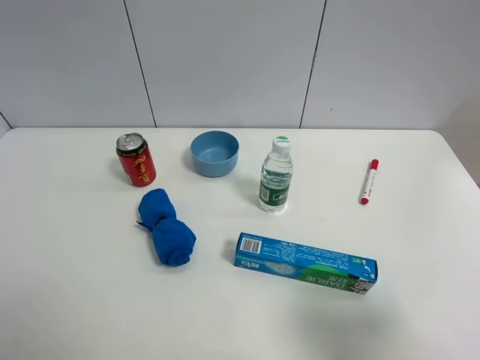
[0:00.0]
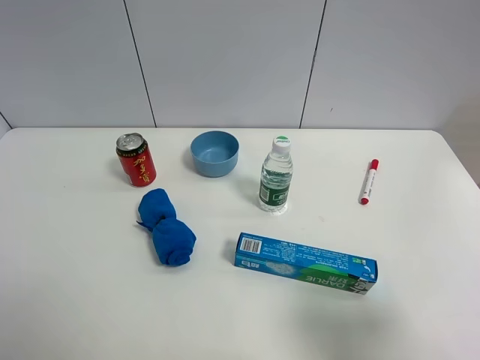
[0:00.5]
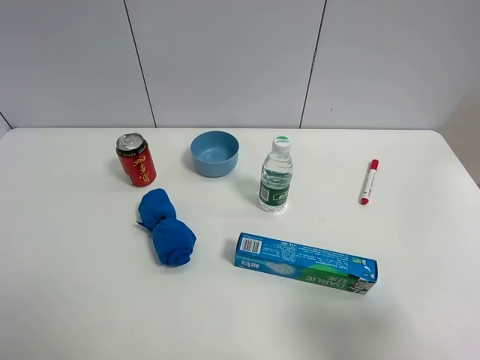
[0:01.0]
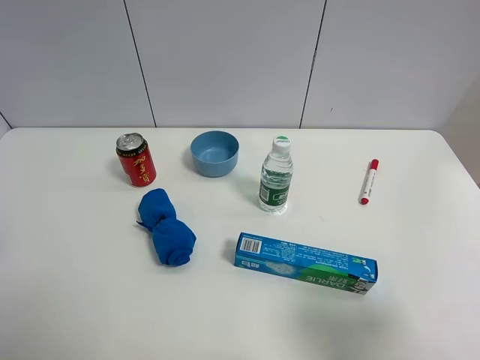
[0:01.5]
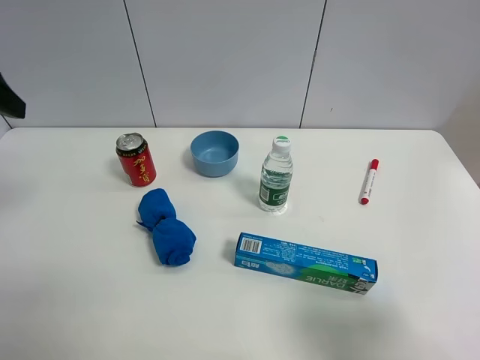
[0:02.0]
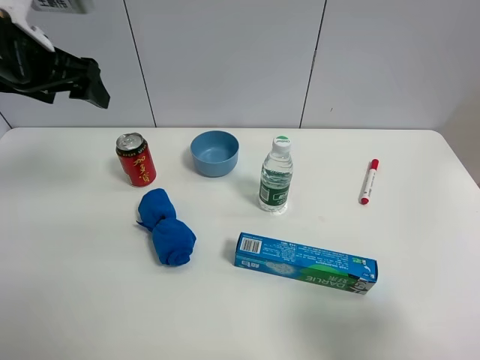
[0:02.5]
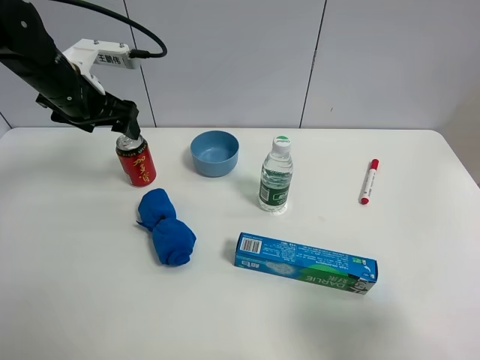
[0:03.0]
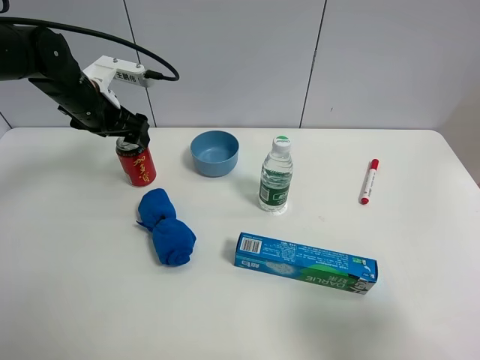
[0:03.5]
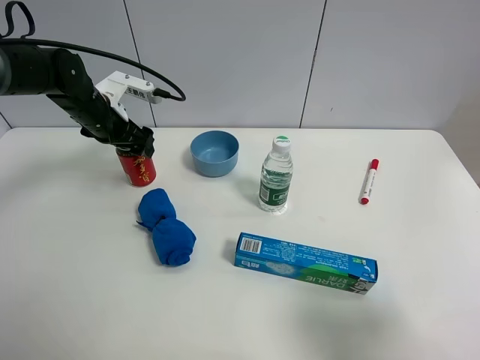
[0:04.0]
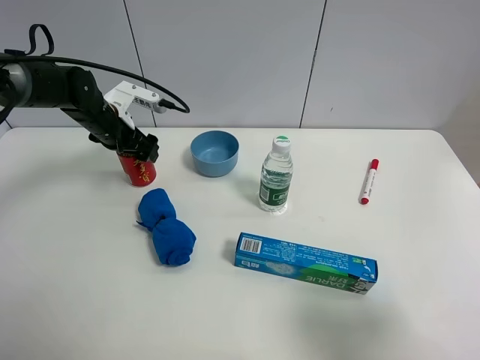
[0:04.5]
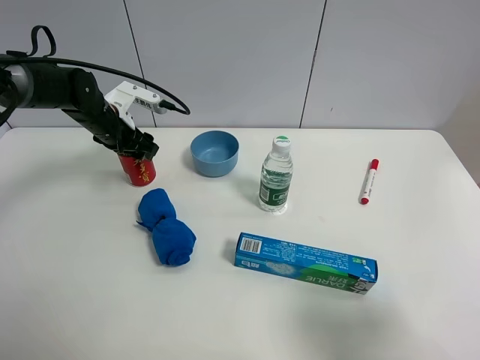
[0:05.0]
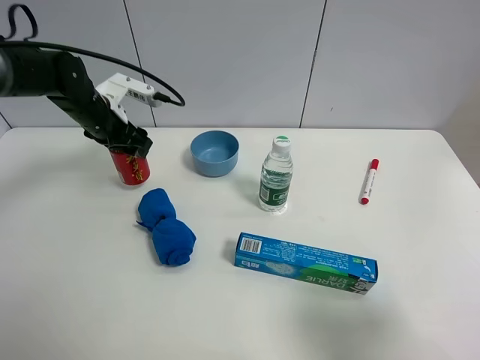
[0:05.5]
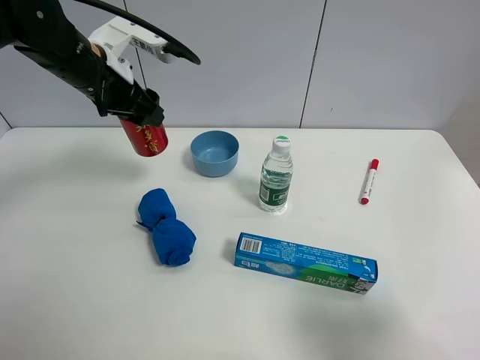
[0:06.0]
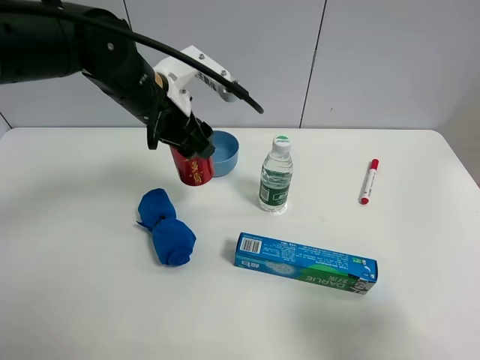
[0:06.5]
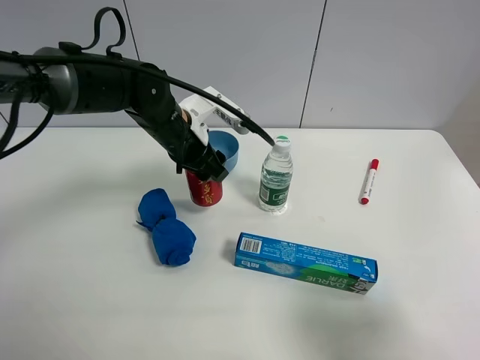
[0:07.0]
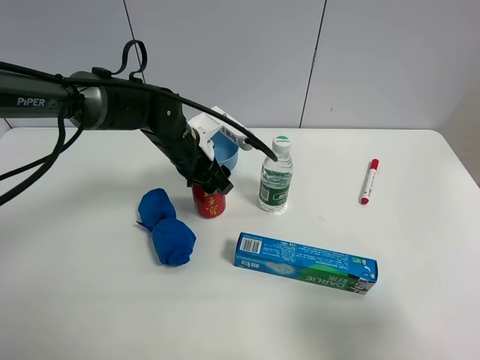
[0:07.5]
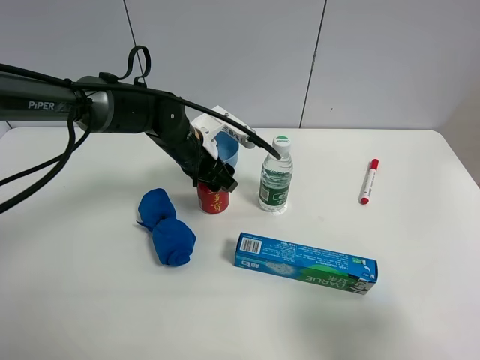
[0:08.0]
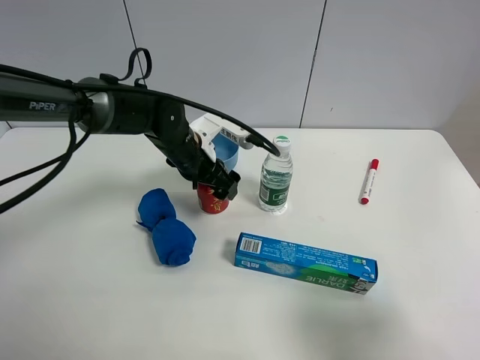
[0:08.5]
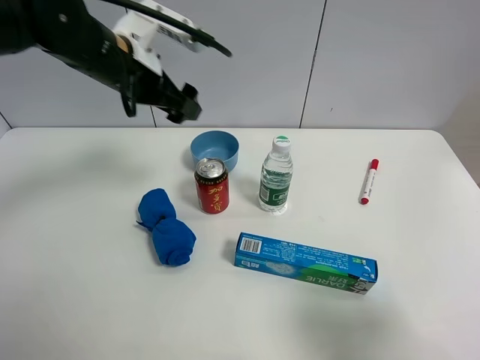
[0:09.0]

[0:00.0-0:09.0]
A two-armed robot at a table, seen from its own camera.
Task of the whole recording: the gripper move the object.
Step, 0:00.0 to 0:05.0: Grasp the Jia Duo Bao with the left gripper.
Step, 0:05.5 to 0:08.0: Place the Jia Duo Bao on the table with the left gripper.
0:02.0 to 0:04.5: The left gripper goes roughly 30 cm downward and forward.
0:04.5 to 0:07.0: The left gripper goes some 15 cm to the right and backward, and closes.
0:07.0 to 0:09.0: The left gripper goes roughly 15 cm upward and to the left, and opens its fingers.

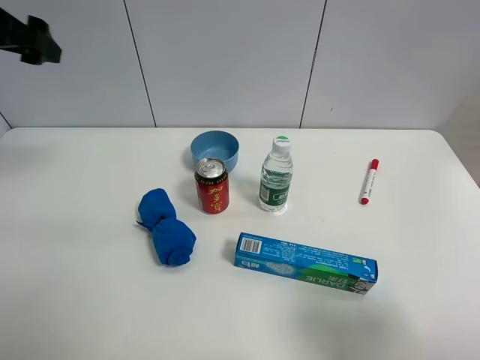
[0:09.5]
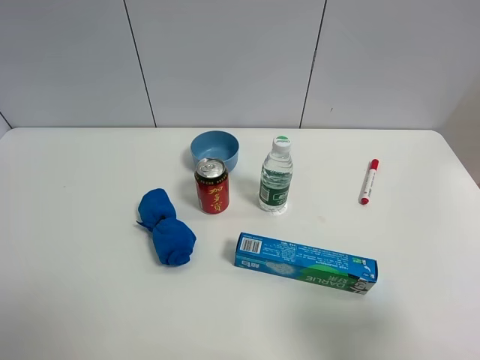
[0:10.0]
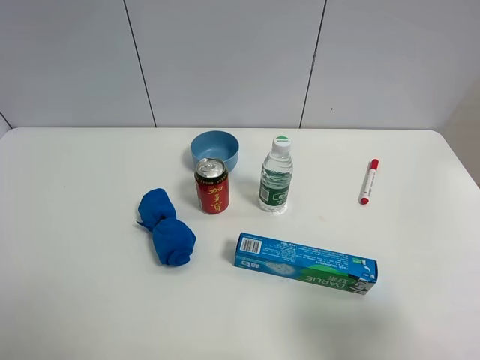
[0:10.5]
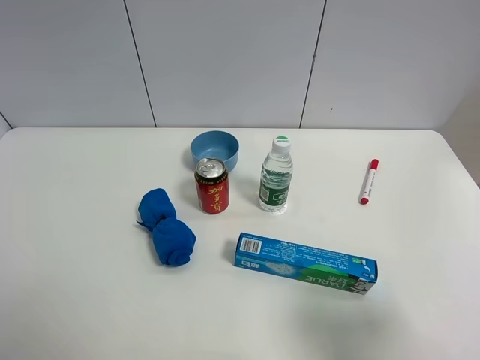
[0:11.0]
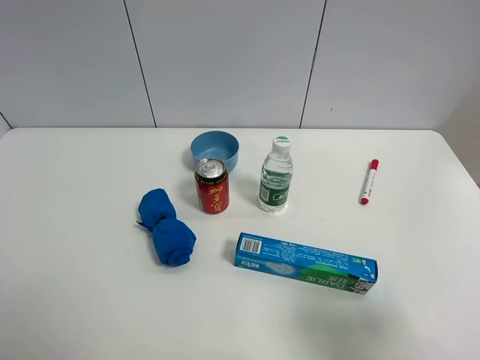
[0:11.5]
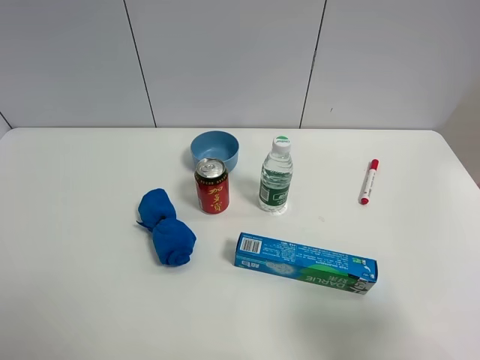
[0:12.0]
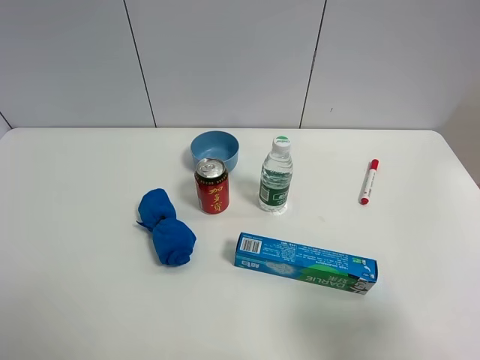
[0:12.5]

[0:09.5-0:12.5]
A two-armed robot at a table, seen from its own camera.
Task of the whole recording: the gripper move the object.
0:09.5 to 0:11.0: The left gripper is displaced backward by roughly 30 cm.

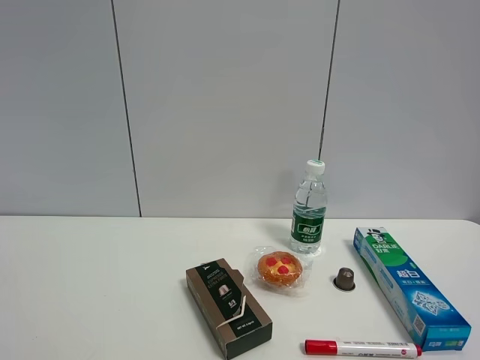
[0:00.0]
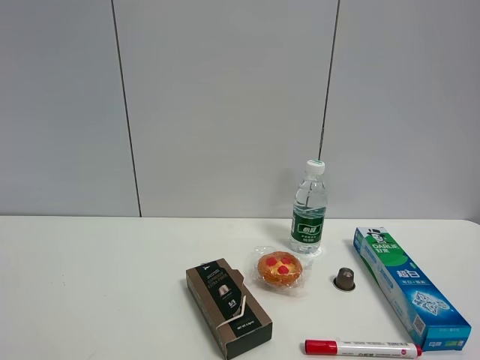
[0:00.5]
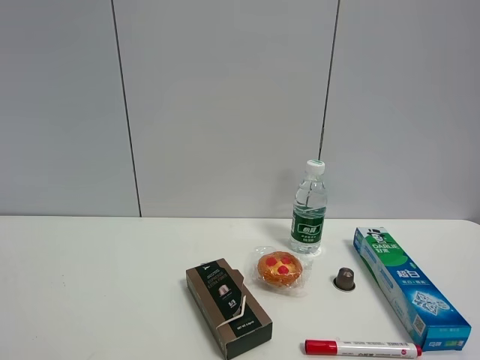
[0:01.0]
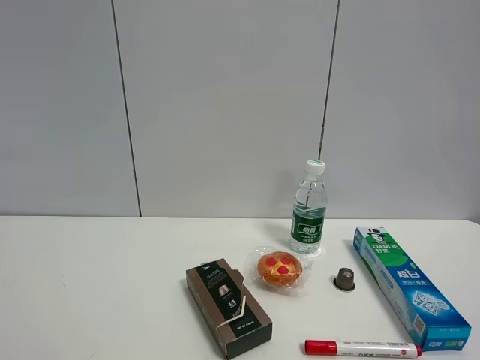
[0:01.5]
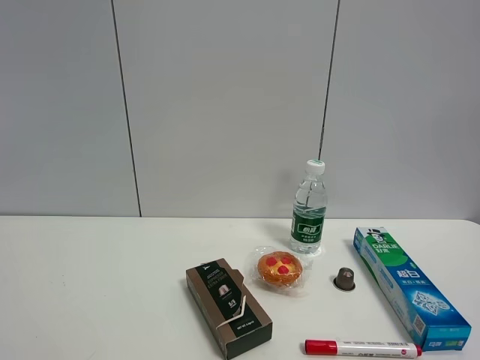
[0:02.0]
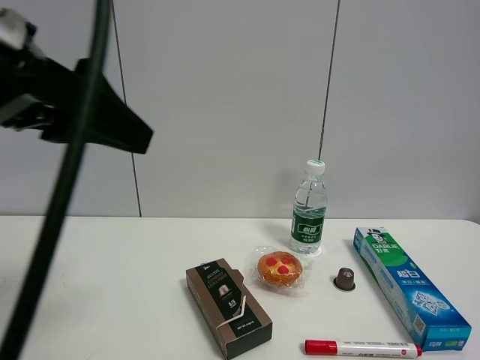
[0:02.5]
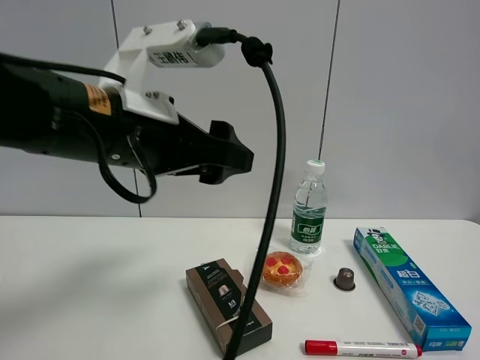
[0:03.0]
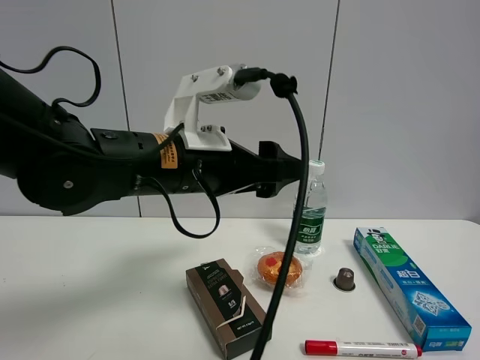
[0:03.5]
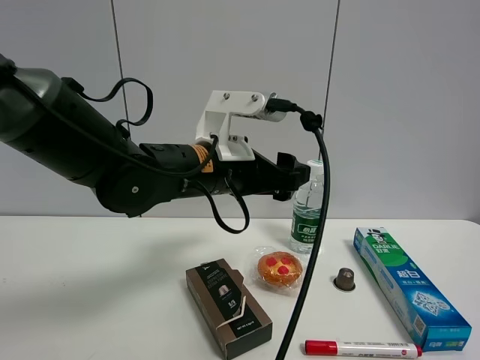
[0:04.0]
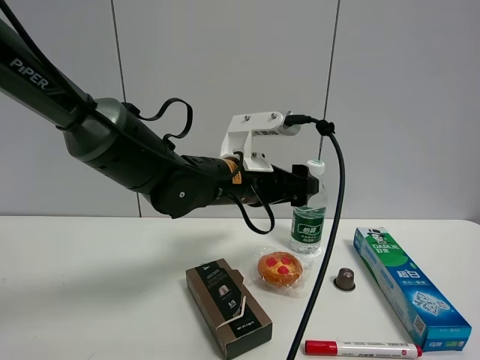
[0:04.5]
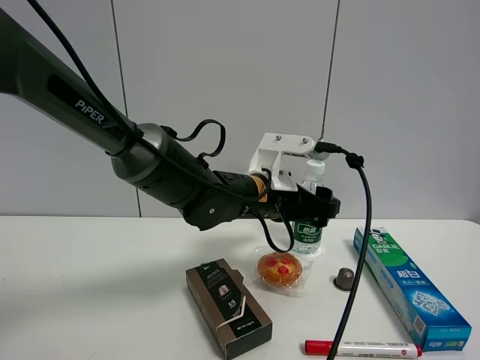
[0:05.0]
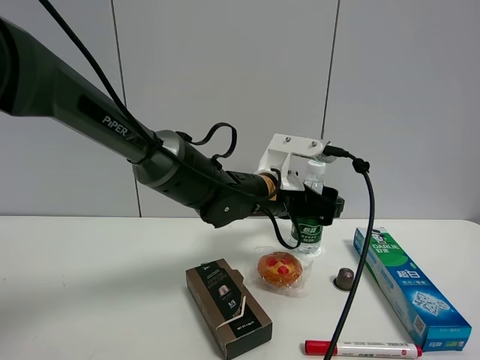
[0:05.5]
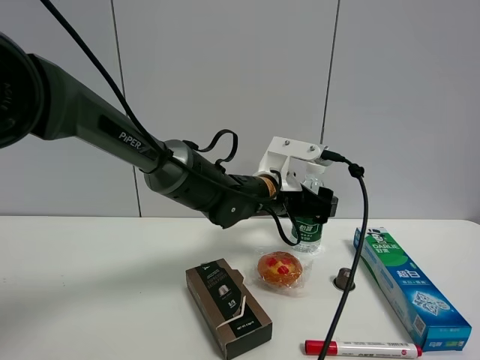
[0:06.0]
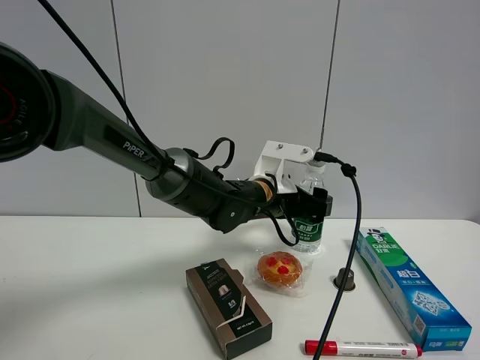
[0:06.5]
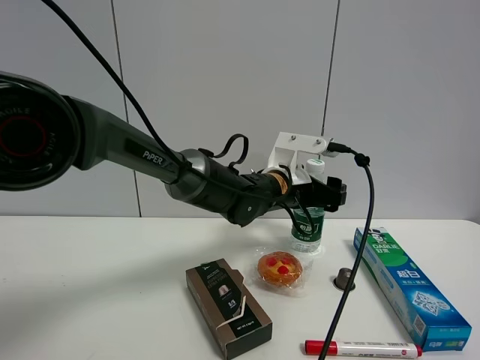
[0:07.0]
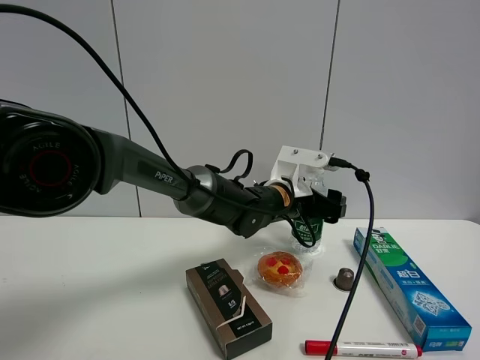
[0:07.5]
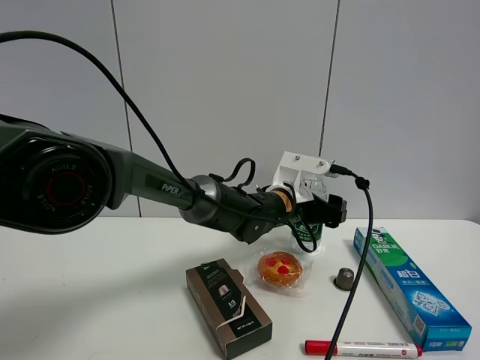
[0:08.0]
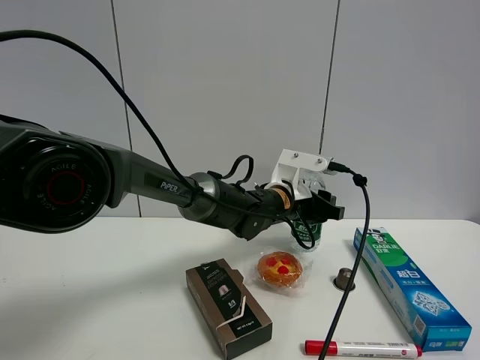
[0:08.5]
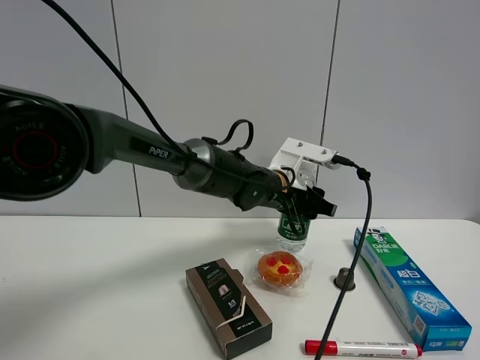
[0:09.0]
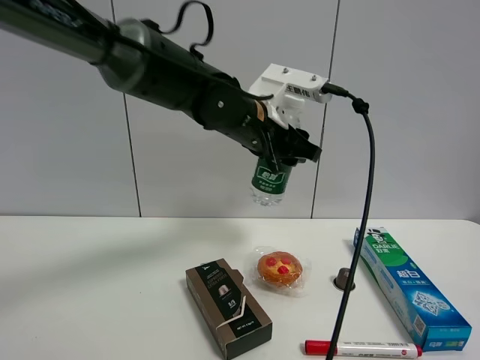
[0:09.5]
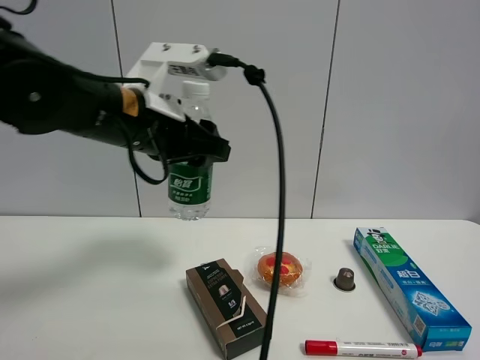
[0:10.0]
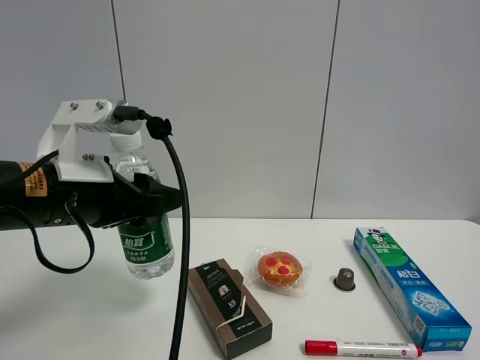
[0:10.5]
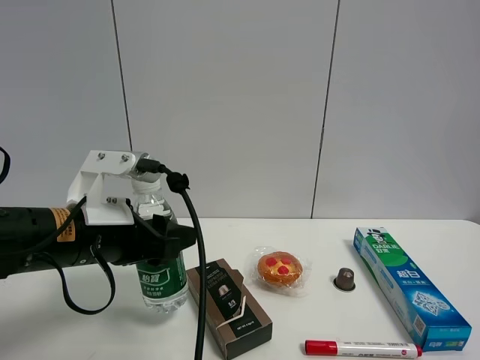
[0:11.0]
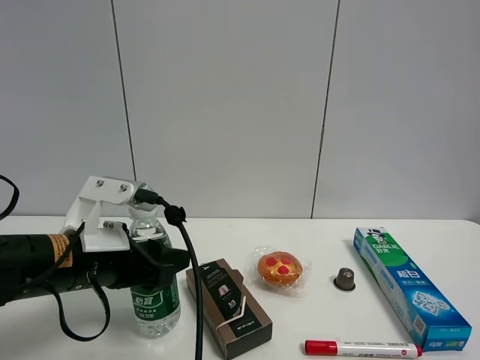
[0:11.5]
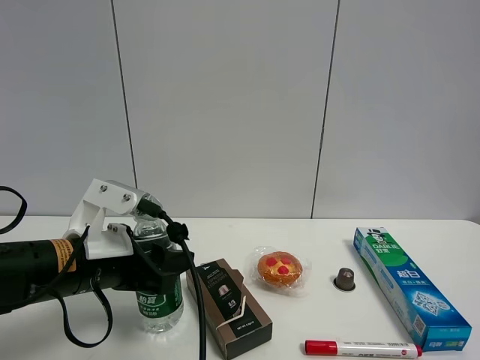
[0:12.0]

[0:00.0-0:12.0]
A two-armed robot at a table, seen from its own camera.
Task of the whole recording: the gripper move the object.
Step, 0:00.0 to 0:08.0: Grasp the YiBao mineral water with the left gripper.
0:02.0 to 0:04.0: The left gripper moves to the right, forward and downward, roughly 35 cm.
0:04.0 to 0:06.0: The left gripper travels forward, downward and to the right by some 15 cm.
0:06.0 to 0:08.0: The left gripper moves some 5 cm.
0:08.0 to 0:10.0: The left gripper heads to the left, upward and backward, covering roughly 30 cm, and closes up.
0:10.0 to 0:12.0: The left gripper is displaced downward by some 15 cm.

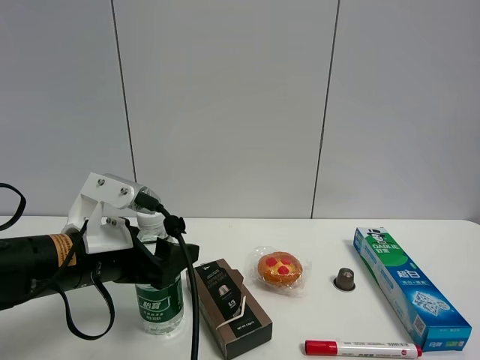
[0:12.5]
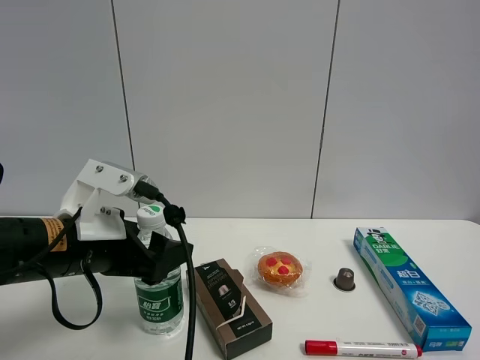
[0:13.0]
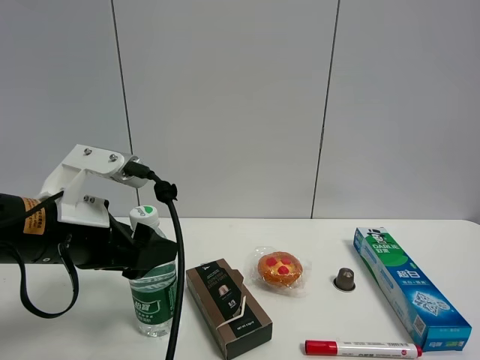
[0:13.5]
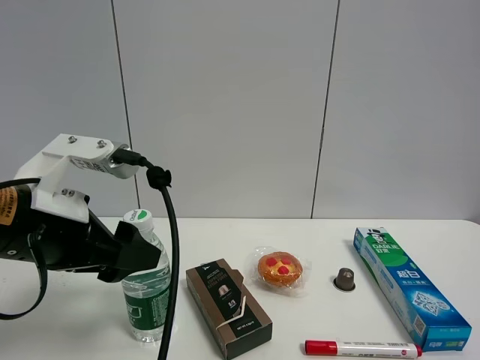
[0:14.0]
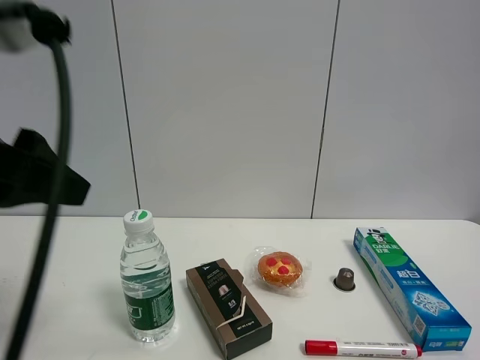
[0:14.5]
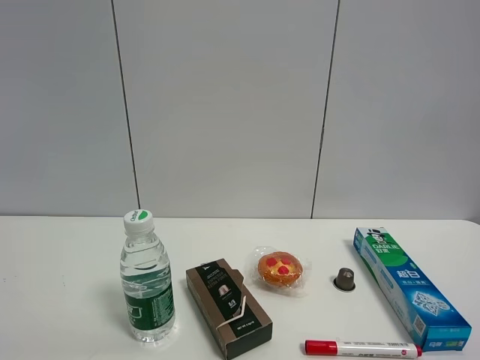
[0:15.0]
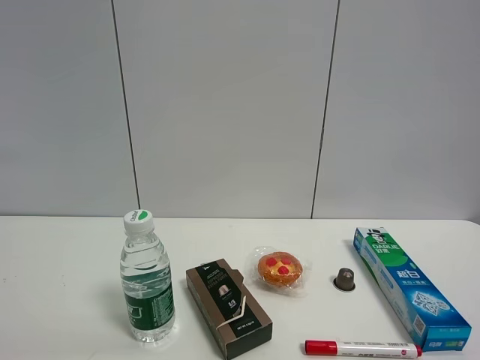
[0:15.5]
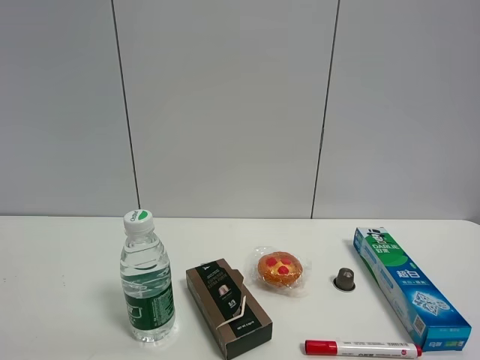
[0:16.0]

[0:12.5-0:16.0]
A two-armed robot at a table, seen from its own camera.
Task of the whole recording: the gripper move the object.
0:12.5 to 0:14.5: The left gripper goes about 20 cm upward and backward.
0:14.5 to 0:16.0: The left gripper moves backward and to the left, approximately 20 cm.
